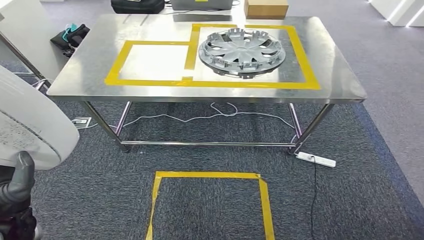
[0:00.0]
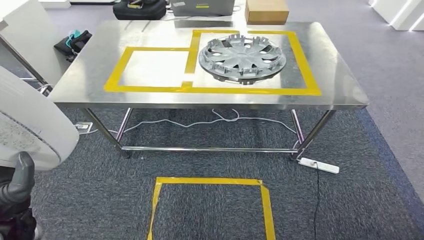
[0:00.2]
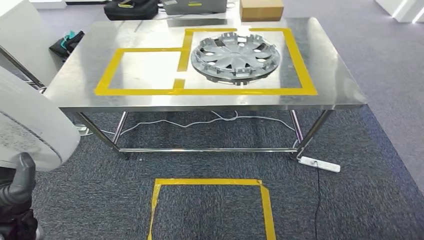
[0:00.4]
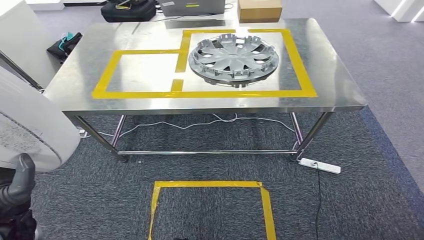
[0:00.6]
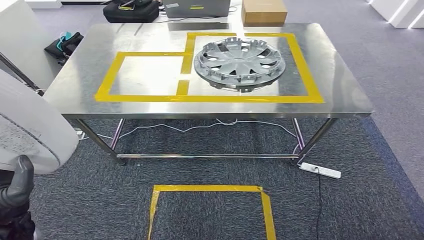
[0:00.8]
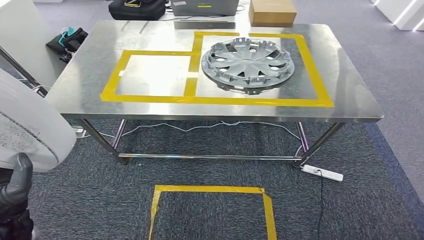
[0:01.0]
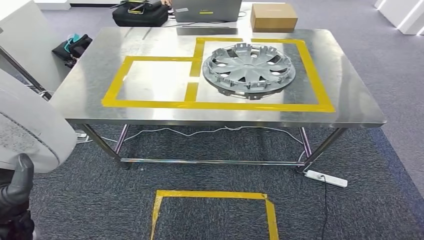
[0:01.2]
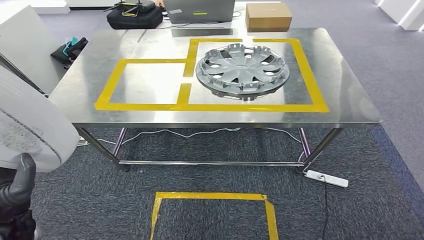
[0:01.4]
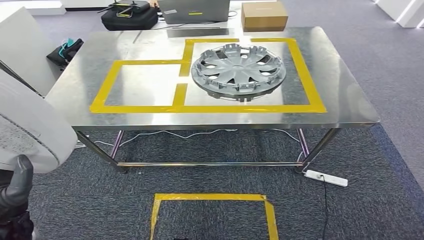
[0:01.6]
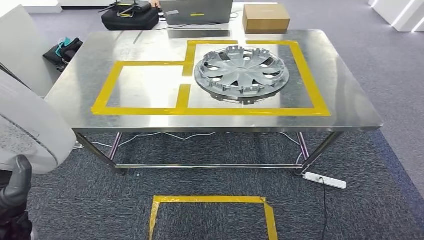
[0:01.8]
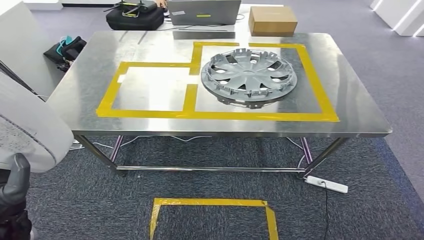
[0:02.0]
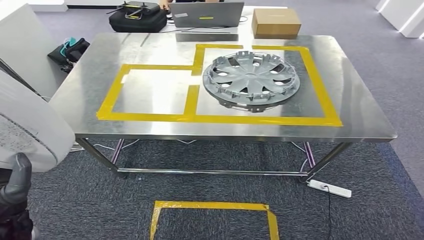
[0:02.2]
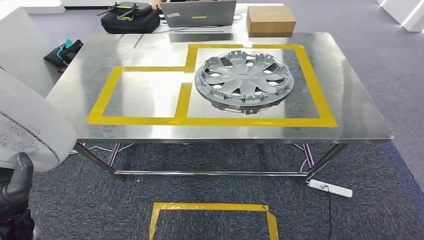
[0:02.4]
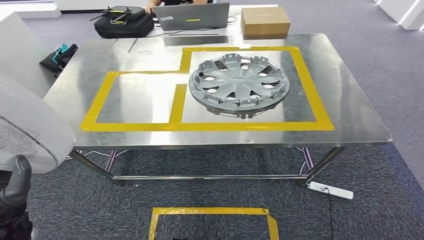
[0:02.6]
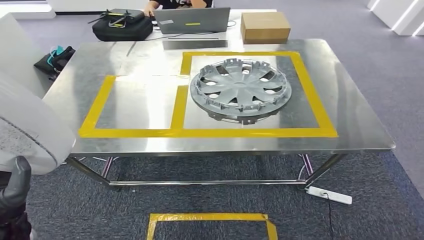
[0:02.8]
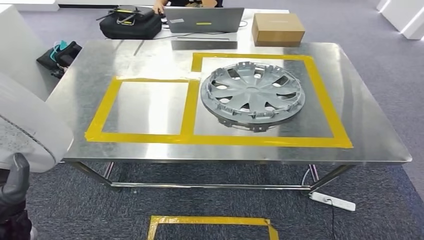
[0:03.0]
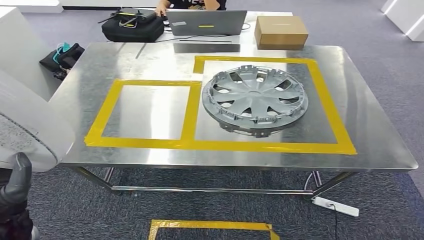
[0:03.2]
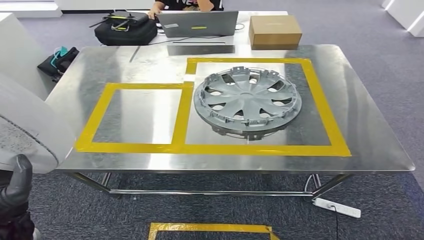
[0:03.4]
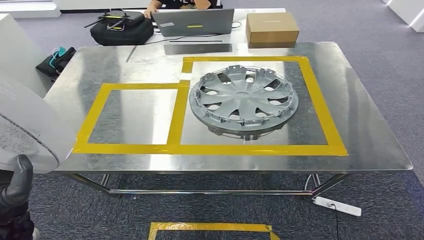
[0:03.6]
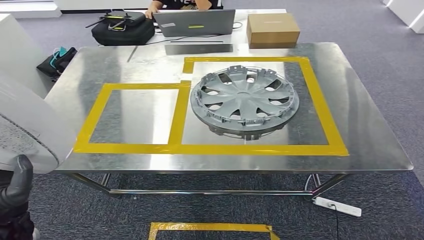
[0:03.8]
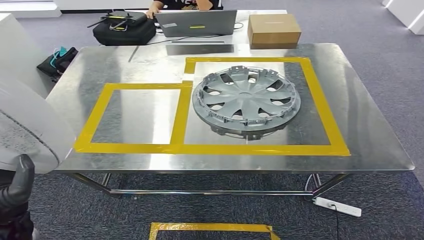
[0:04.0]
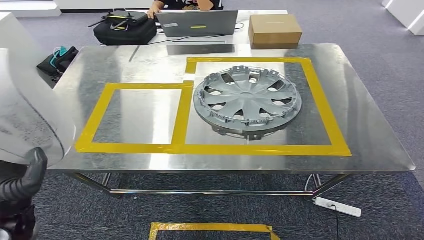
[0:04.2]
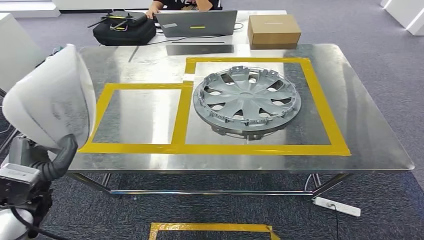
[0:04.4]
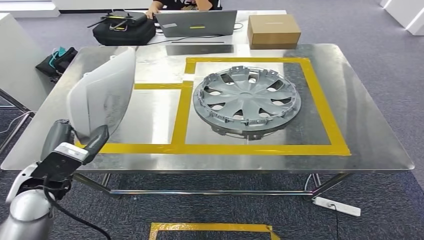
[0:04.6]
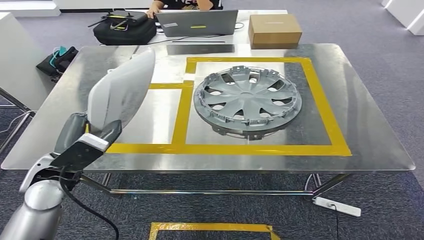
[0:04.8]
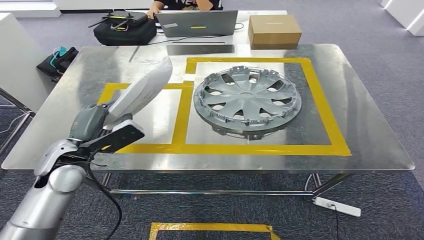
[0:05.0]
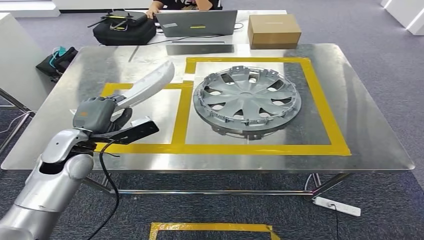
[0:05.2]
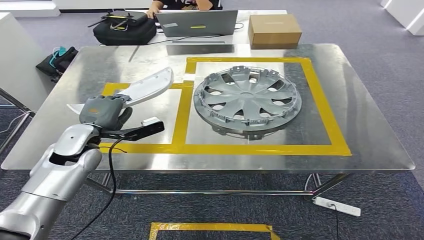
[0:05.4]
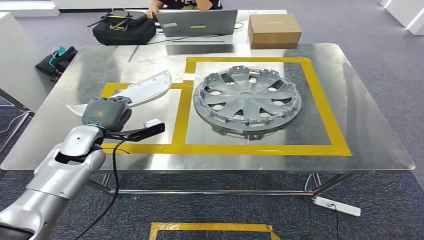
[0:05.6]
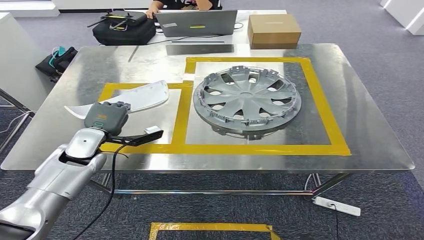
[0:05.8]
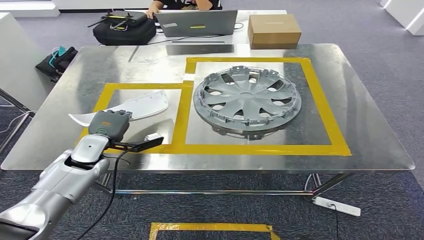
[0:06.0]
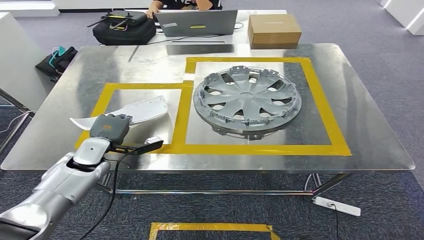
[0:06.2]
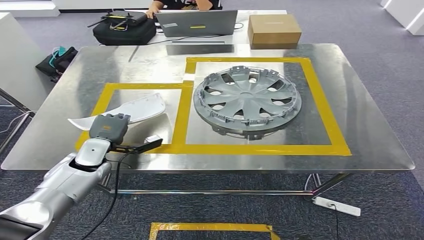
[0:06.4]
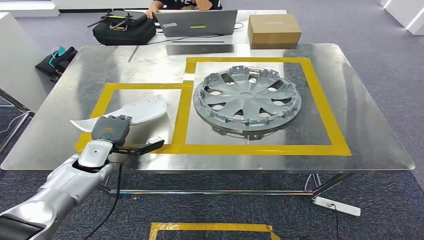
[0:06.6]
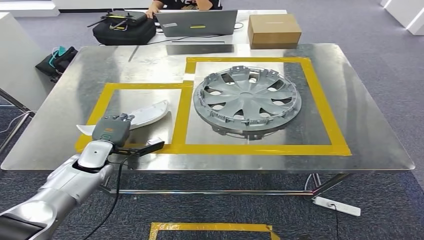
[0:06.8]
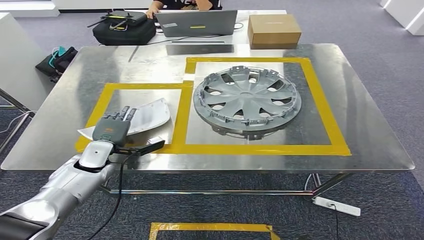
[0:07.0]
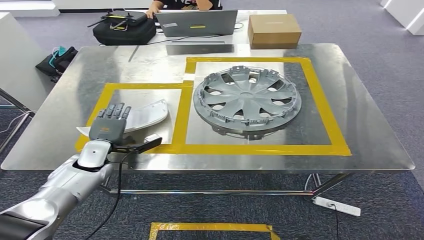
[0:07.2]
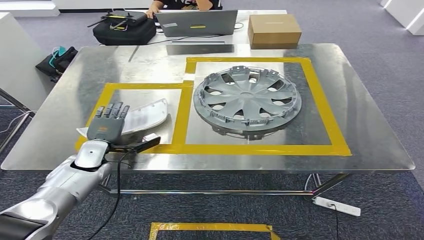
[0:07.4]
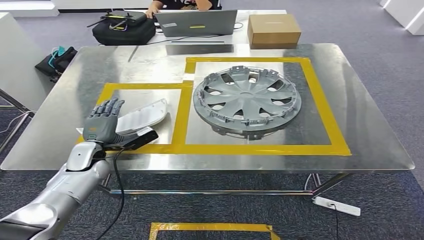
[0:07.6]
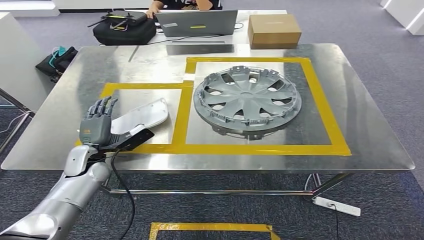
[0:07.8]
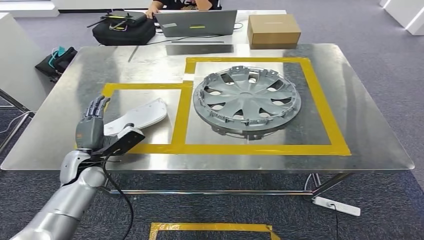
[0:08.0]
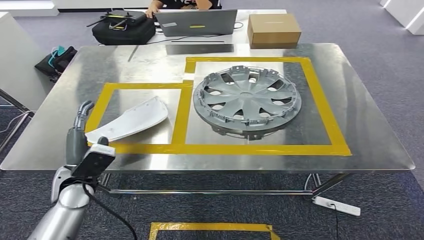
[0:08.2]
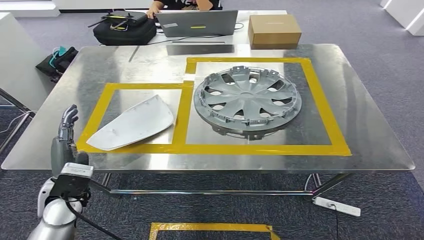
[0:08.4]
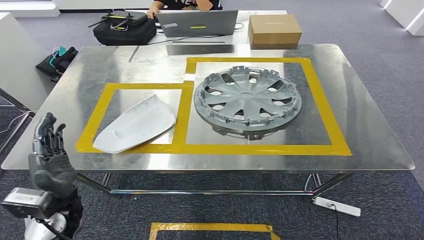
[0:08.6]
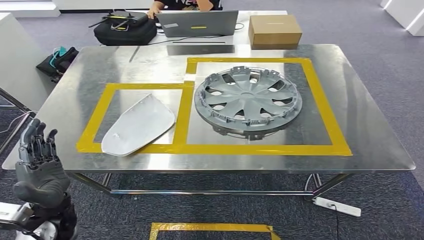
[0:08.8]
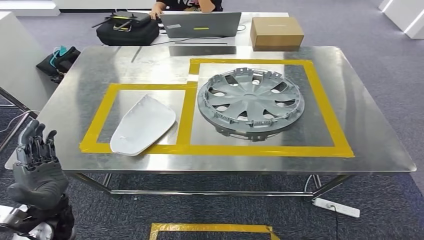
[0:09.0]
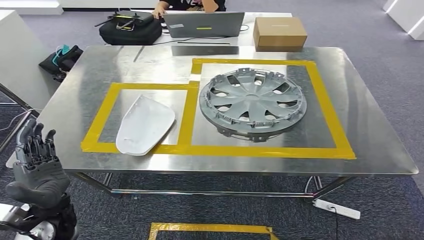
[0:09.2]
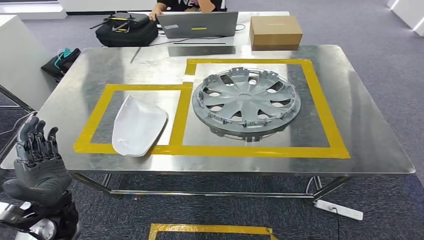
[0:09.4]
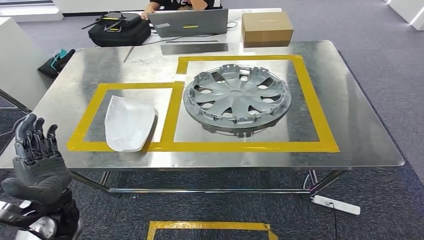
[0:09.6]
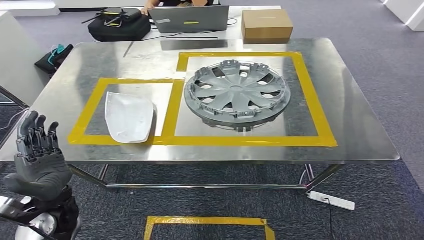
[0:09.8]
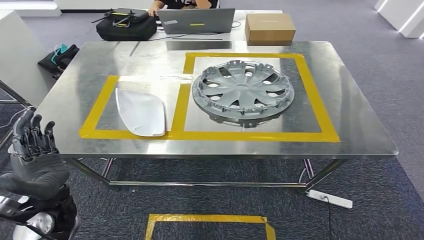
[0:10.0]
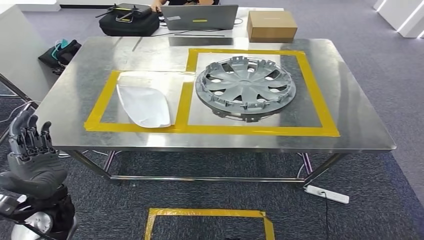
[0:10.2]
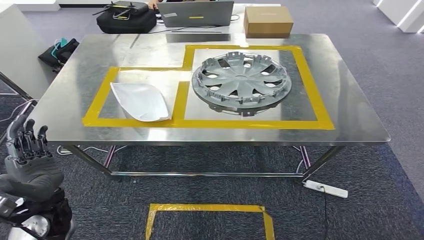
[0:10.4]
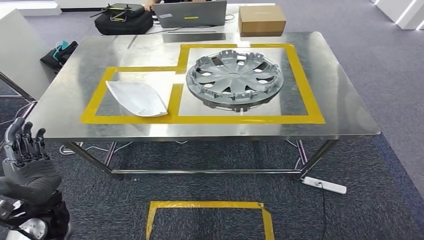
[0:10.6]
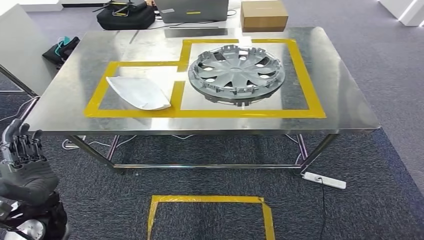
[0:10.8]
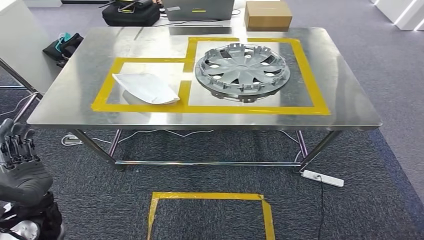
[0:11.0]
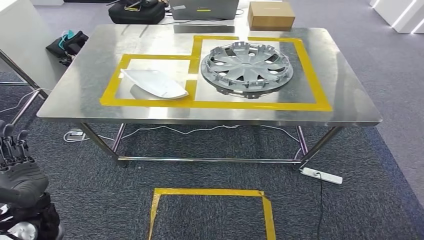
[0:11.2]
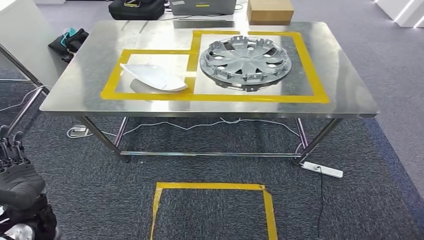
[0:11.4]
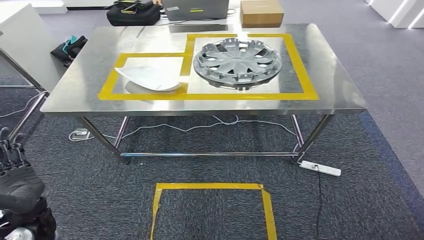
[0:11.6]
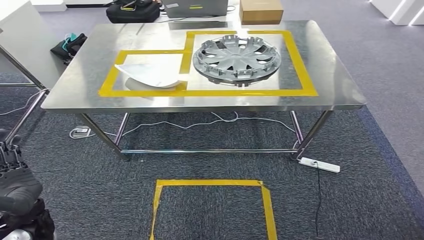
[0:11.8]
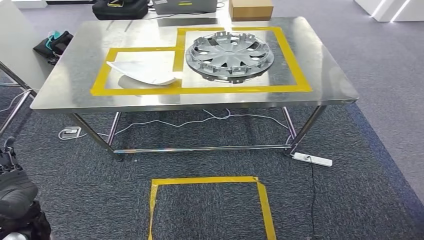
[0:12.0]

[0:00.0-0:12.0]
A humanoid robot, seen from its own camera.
Step, 0:00.0 to 0:02.0: Move the small component to the workbench.
Step, 0:02.2 to 0:09.2: Insert the small component into the corresponding slot on the workbench.
0:04.4 to 0:06.0: The left hand shifts some 20 cm forward and downward.

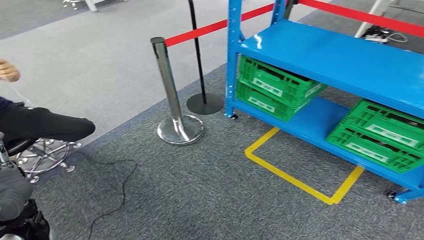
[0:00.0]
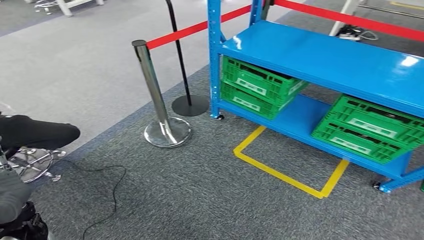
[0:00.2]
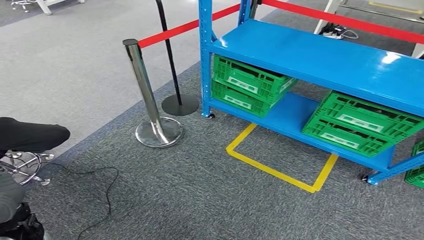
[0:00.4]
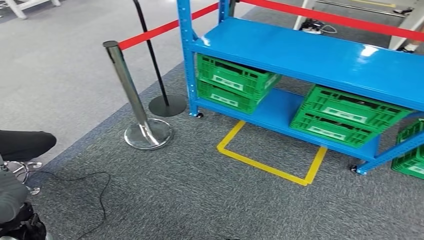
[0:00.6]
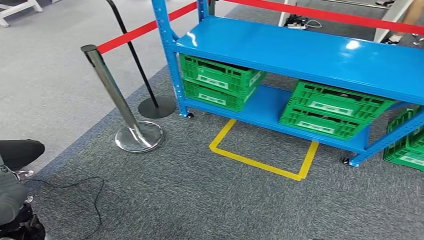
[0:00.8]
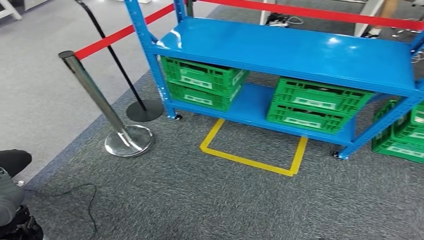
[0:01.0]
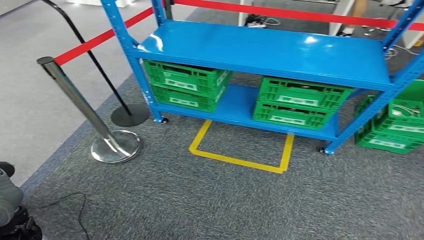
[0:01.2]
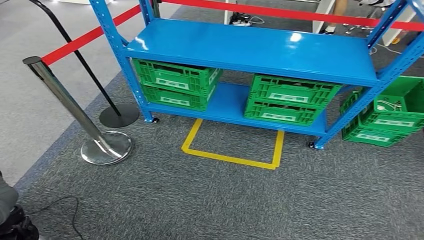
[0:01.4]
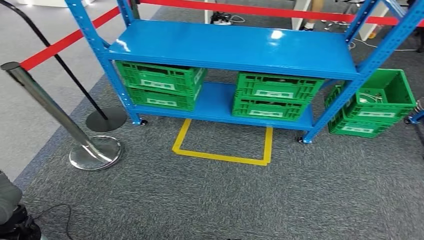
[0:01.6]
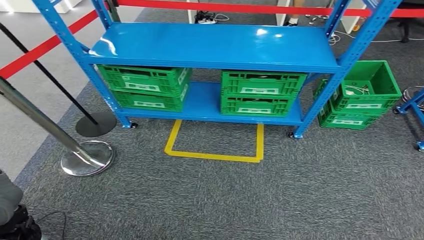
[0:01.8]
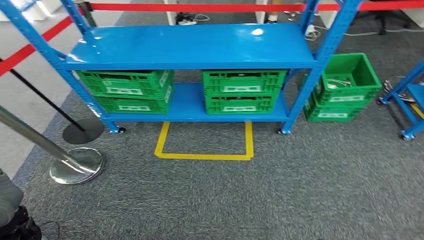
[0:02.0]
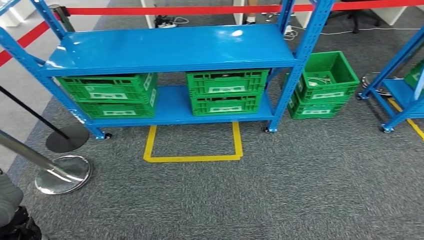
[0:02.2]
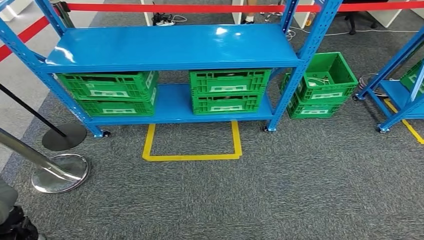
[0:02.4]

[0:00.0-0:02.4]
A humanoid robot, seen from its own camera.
Step, 0:00.0 to 0:02.4: Return to the initial position at the workbench.

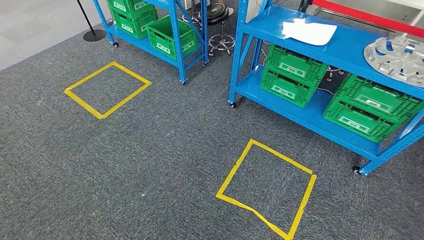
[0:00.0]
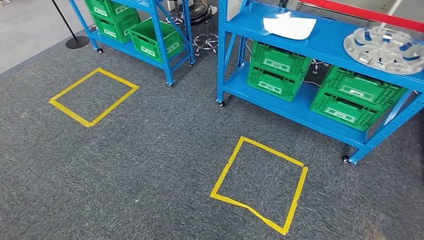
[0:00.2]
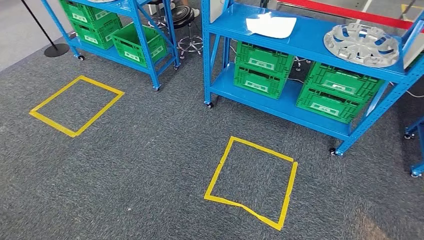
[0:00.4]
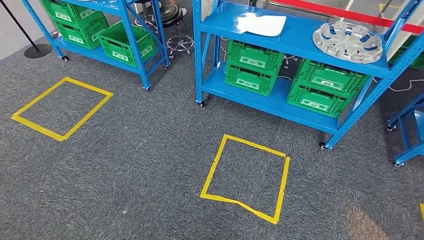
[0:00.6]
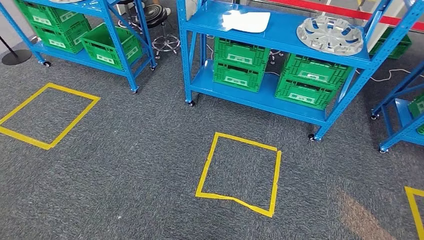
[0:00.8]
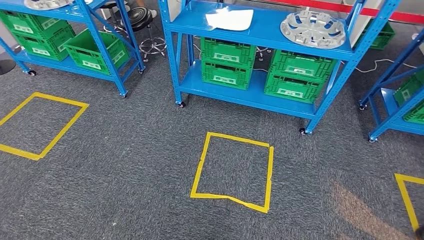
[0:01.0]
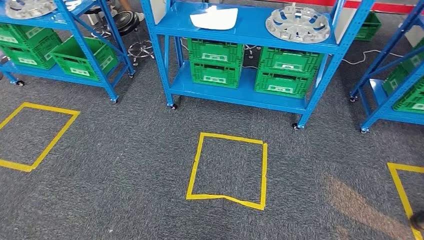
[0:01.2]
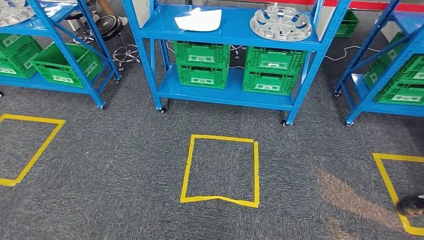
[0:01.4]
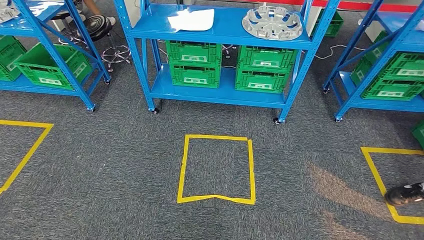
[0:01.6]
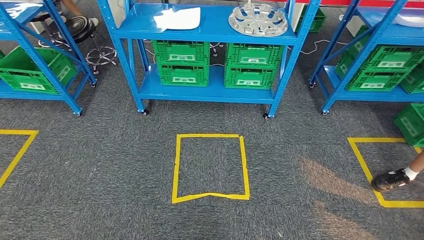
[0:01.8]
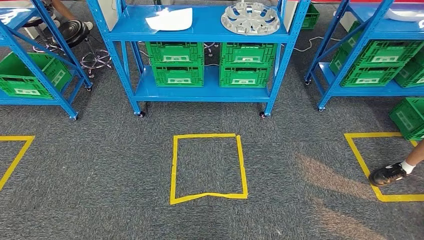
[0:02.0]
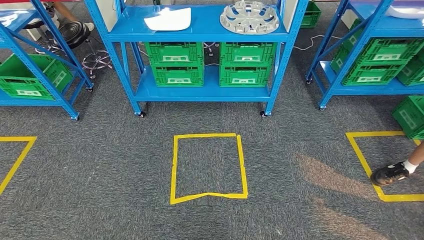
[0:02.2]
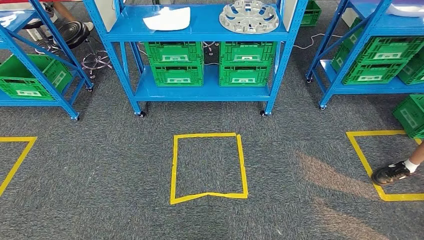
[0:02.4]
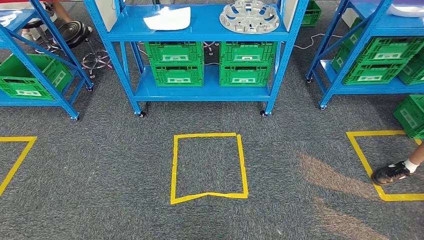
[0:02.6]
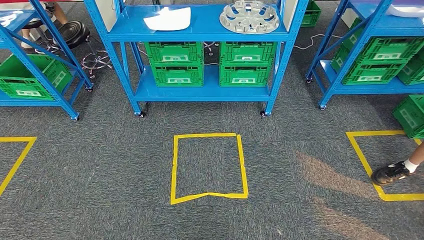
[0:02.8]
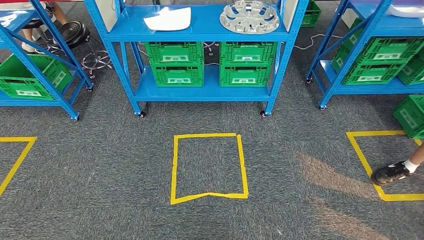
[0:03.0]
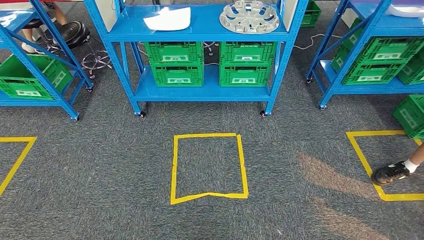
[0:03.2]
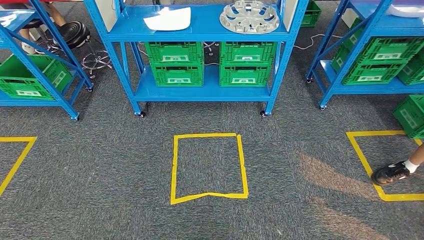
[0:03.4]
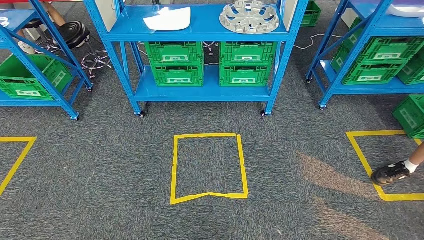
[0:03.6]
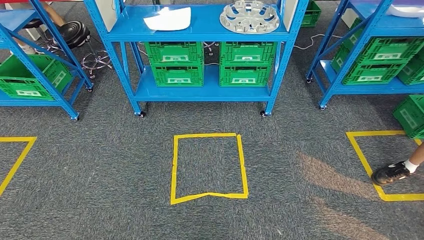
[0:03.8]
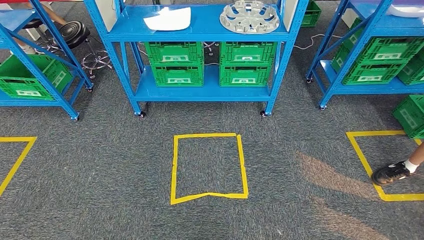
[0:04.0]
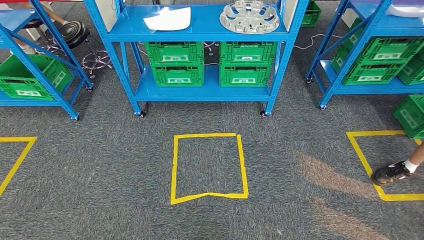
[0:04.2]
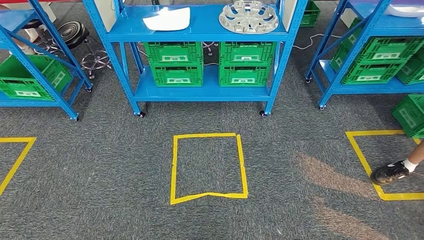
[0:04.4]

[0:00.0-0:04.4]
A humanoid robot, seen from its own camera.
0:03.0 to 0:04.4: The hands move only a little.
